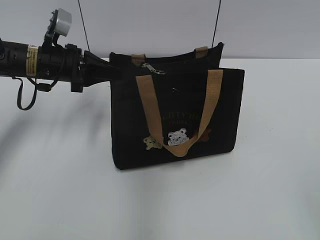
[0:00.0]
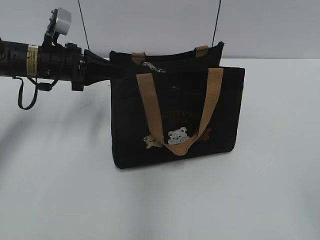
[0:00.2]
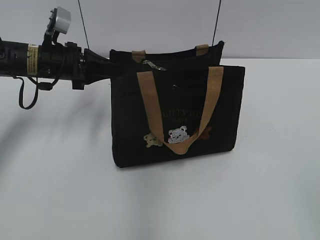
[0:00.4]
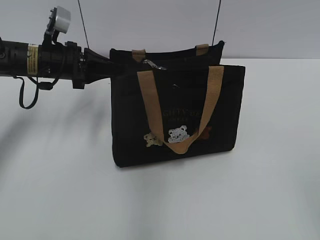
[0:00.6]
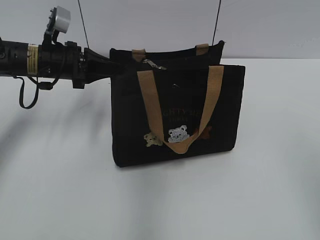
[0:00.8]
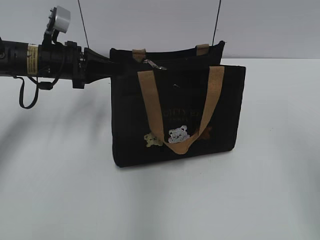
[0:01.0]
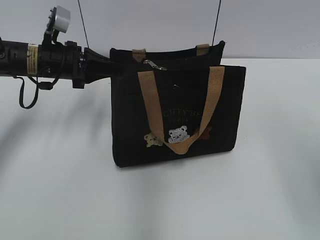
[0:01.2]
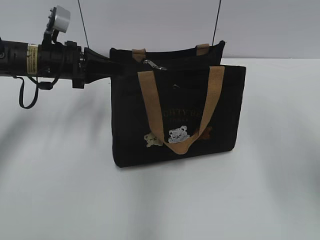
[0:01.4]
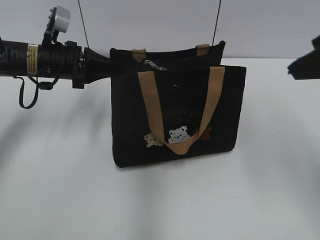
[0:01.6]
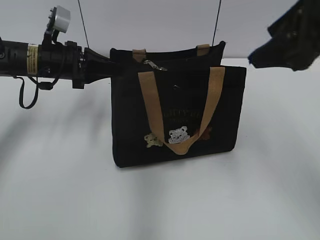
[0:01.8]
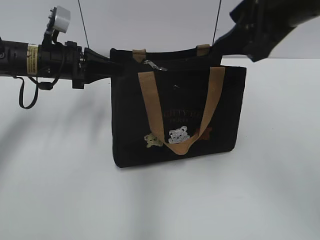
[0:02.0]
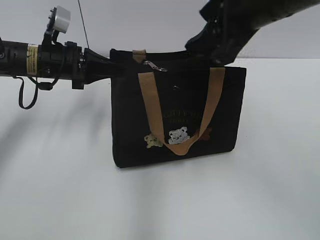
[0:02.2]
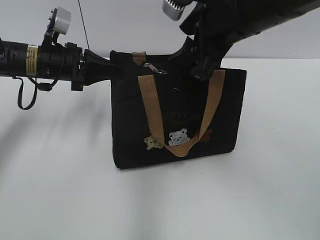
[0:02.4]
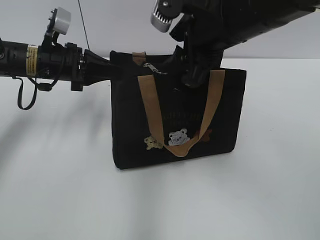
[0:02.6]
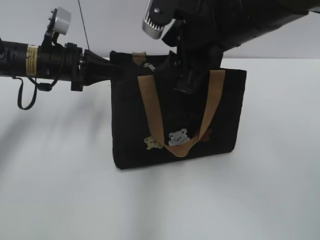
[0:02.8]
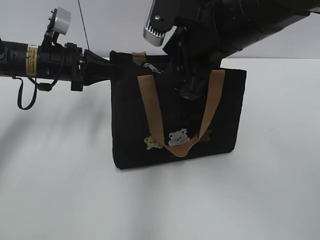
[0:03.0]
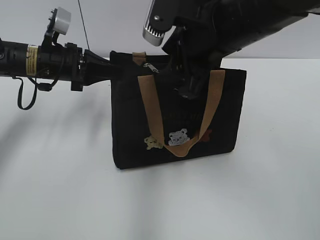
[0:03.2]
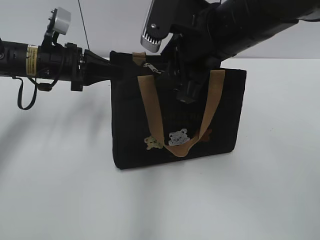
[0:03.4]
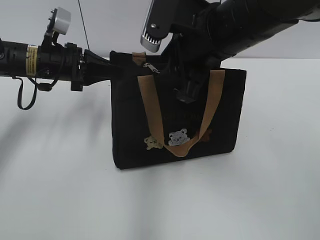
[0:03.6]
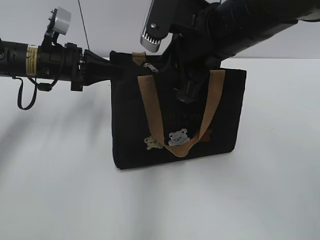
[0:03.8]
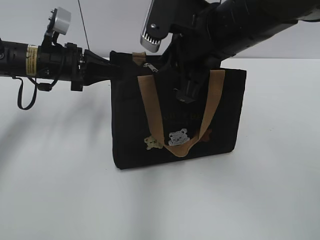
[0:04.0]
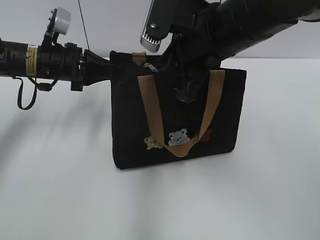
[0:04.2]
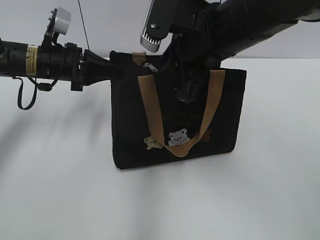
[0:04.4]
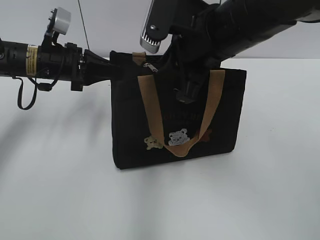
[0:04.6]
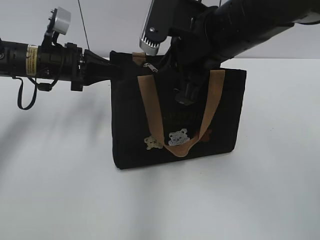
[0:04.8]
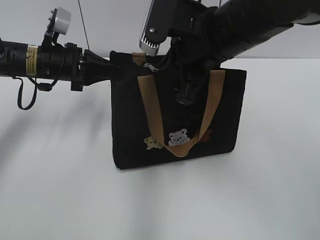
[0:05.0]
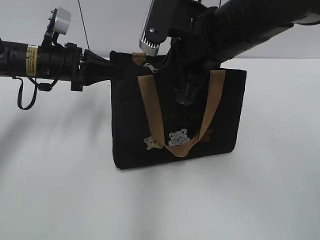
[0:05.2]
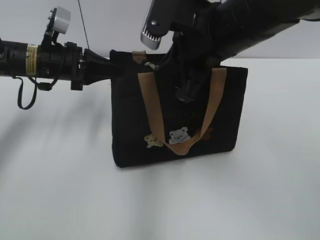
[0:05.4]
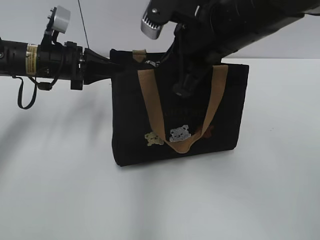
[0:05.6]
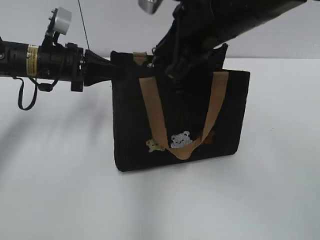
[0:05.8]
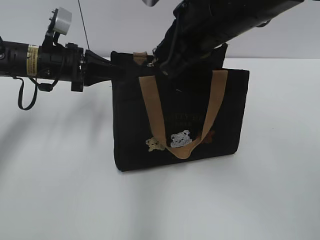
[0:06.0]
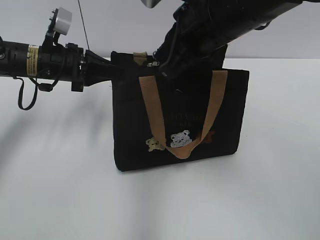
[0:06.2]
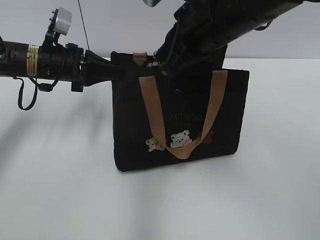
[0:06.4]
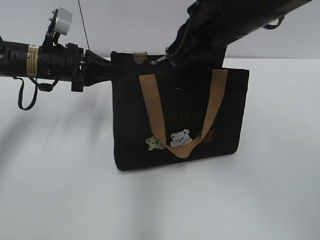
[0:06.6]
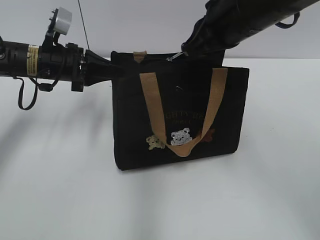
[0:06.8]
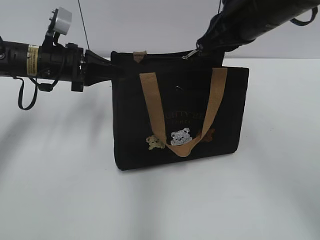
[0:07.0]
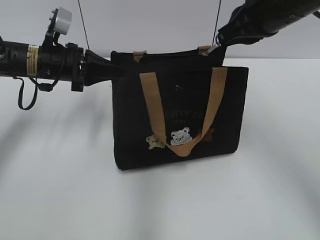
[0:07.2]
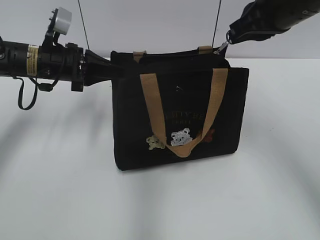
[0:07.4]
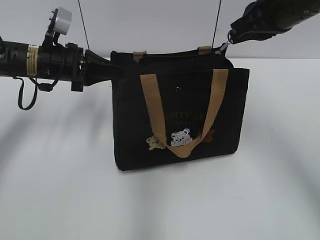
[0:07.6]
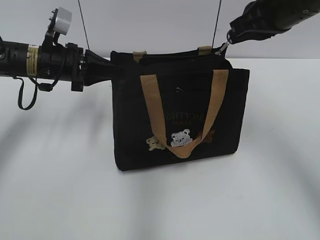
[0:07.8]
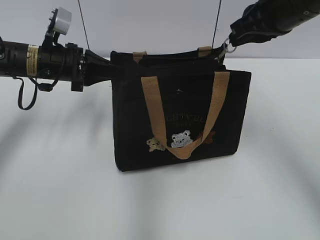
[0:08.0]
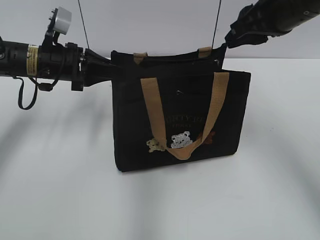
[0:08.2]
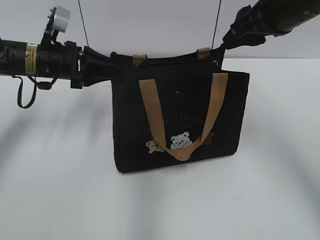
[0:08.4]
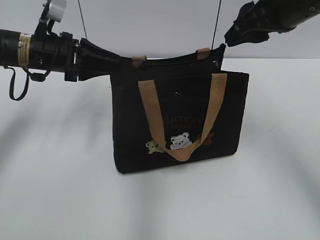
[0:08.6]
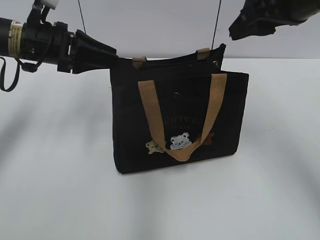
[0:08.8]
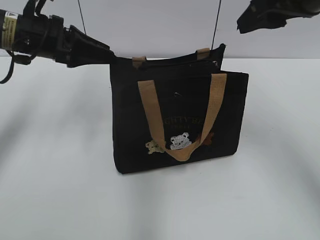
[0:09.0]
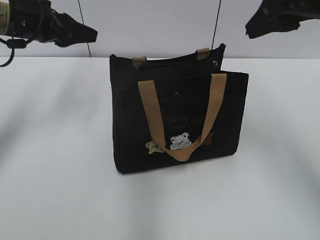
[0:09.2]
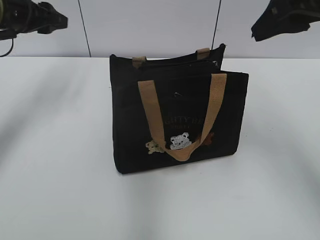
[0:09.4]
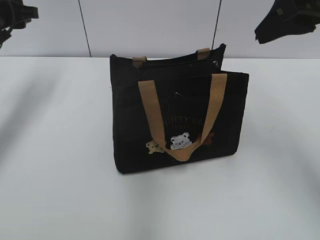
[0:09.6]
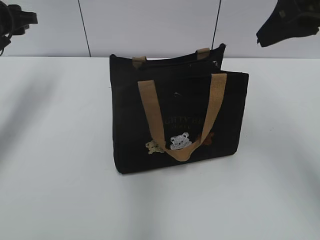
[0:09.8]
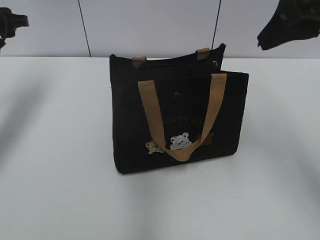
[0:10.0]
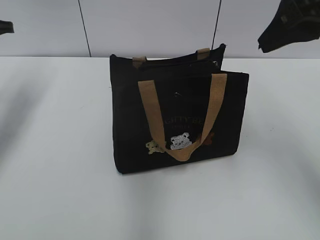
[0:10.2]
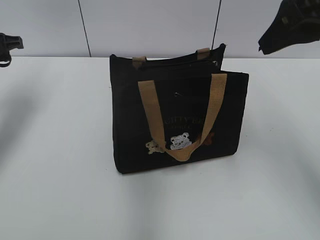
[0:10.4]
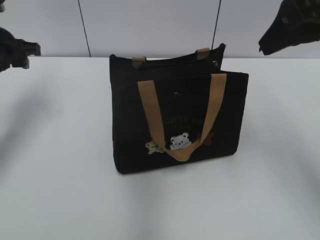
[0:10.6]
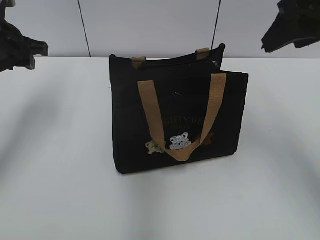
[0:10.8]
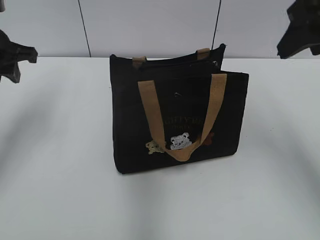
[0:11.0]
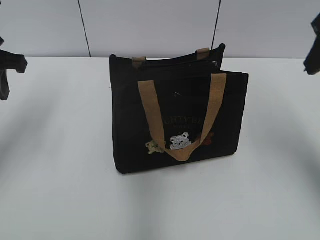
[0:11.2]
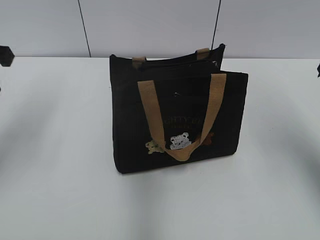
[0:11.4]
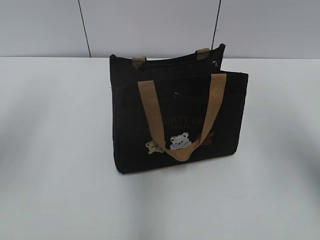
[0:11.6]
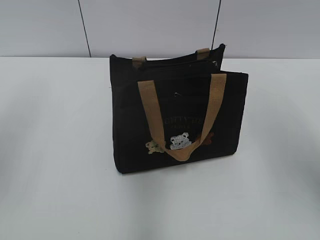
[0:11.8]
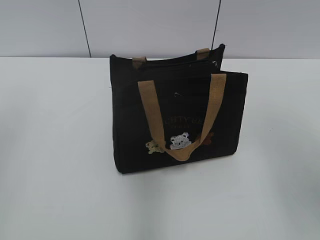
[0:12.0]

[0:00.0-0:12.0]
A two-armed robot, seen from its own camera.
Step, 0:00.0 to 0:08.0: Zip up the bag with your right hand.
Step, 0:08.2 to 0:09.0: Grab the zipper with your left hand.
0:00.0 to 0:01.6: The right gripper shifts some 25 cm forward.
0:01.6 to 0:03.0: The right gripper heads to the left and forward, covering about 15 cm.
0:03.0 to 0:04.4: The right gripper closes.
0:04.4 to 0:06.0: The right gripper closes up.
0:06.0 to 0:07.6: The right gripper heads to the right, covering some 10 cm.
0:07.6 to 0:09.0: The left gripper goes approximately 5 cm upward, and opens up. The right gripper opens.
0:09.0 to 0:10.4: The left gripper is displaced to the left by roughly 10 cm.
0:10.4 to 0:12.0: The right gripper heads backward and to the right, covering approximately 10 cm. Meanwhile the left gripper heads backward and upward, covering approximately 25 cm.

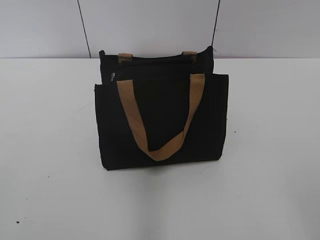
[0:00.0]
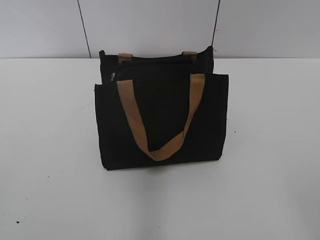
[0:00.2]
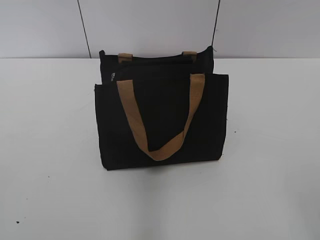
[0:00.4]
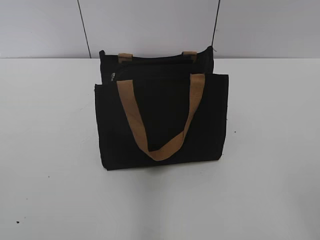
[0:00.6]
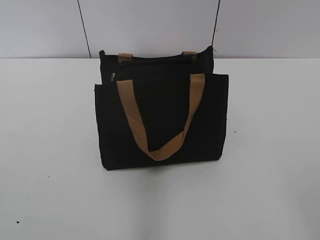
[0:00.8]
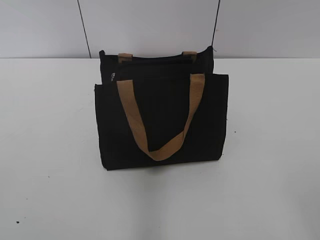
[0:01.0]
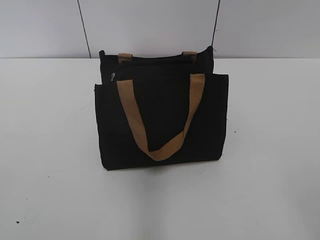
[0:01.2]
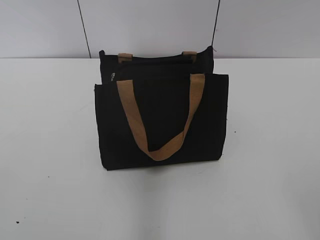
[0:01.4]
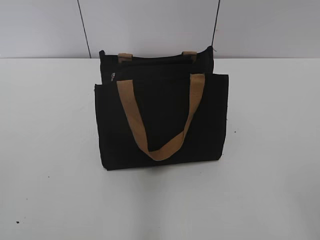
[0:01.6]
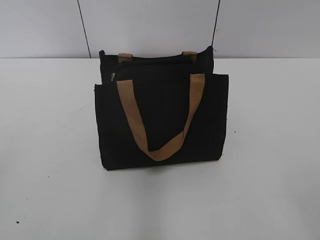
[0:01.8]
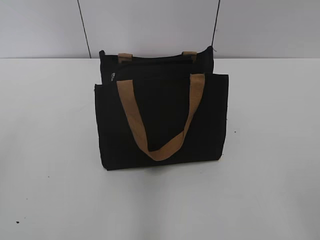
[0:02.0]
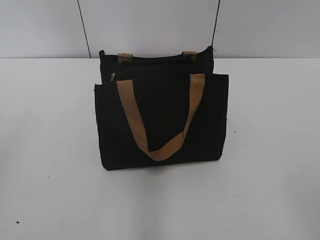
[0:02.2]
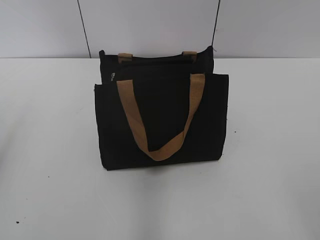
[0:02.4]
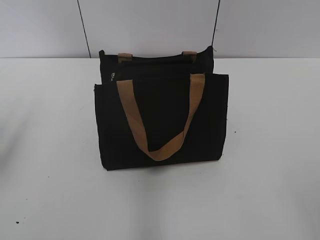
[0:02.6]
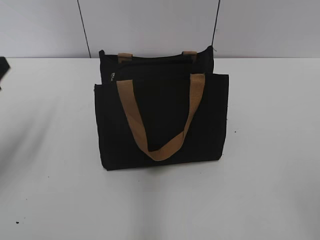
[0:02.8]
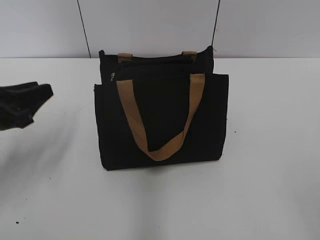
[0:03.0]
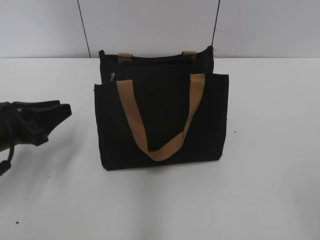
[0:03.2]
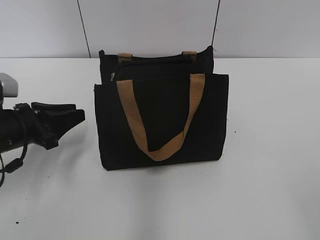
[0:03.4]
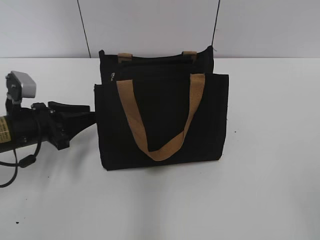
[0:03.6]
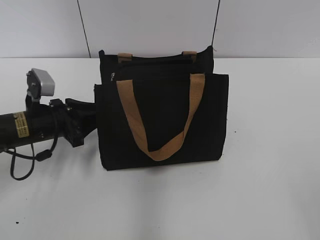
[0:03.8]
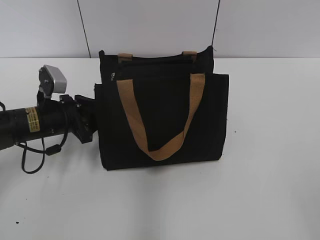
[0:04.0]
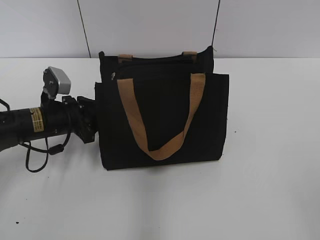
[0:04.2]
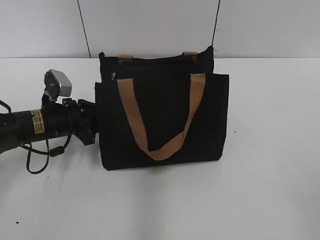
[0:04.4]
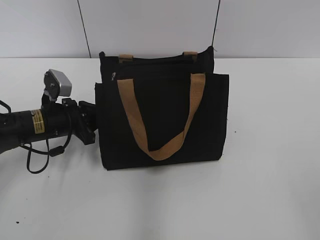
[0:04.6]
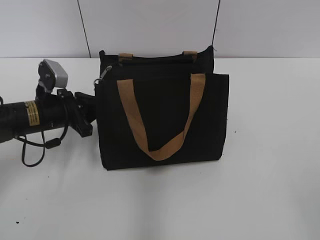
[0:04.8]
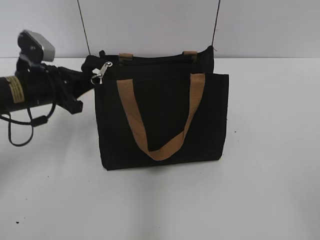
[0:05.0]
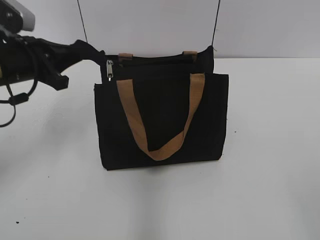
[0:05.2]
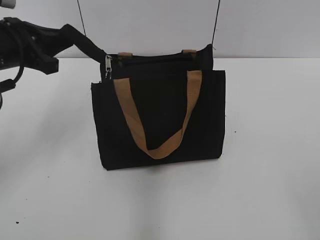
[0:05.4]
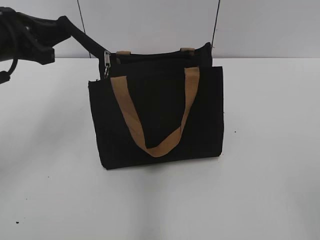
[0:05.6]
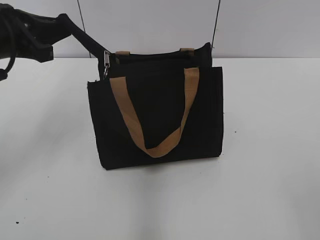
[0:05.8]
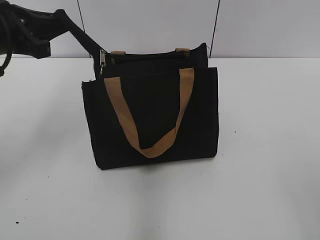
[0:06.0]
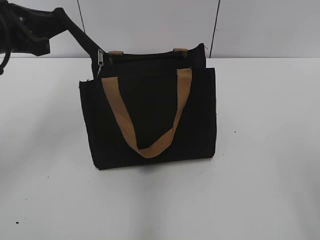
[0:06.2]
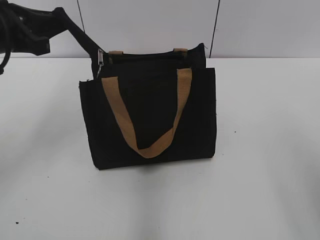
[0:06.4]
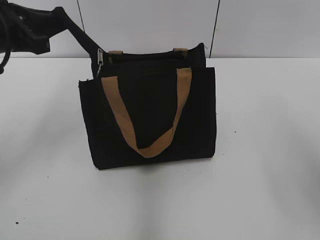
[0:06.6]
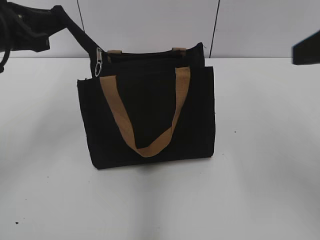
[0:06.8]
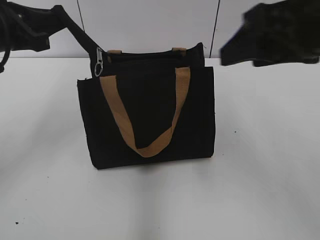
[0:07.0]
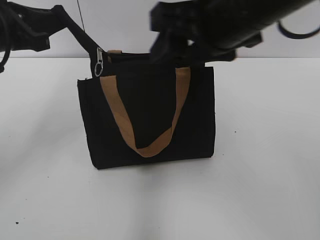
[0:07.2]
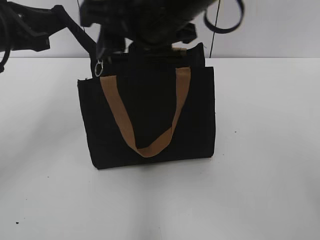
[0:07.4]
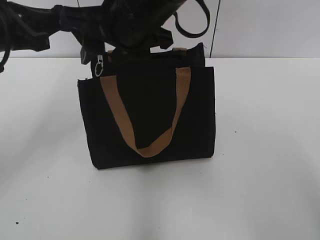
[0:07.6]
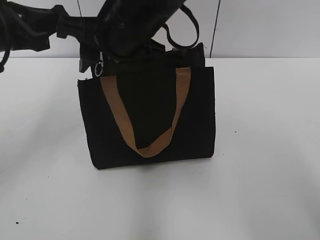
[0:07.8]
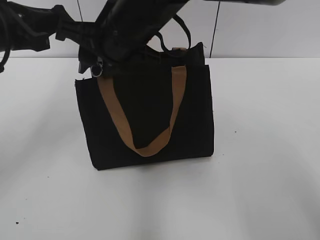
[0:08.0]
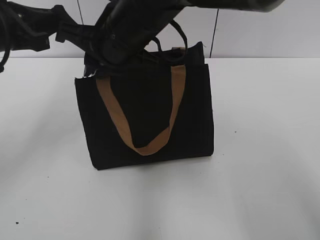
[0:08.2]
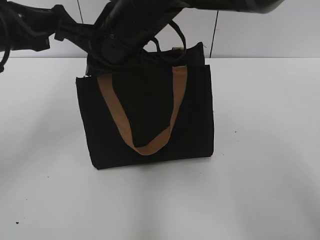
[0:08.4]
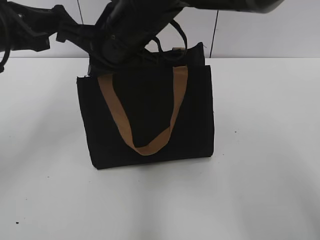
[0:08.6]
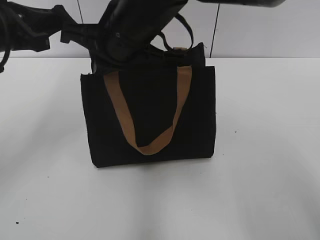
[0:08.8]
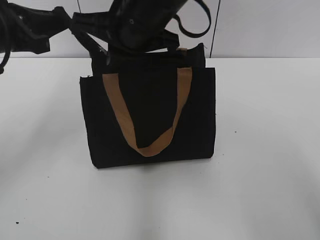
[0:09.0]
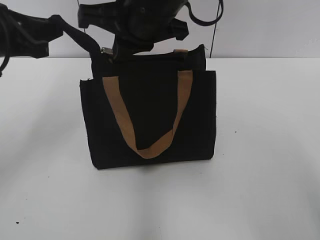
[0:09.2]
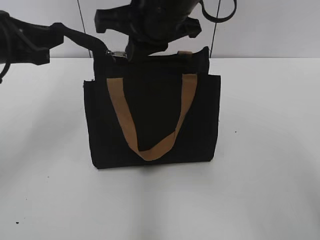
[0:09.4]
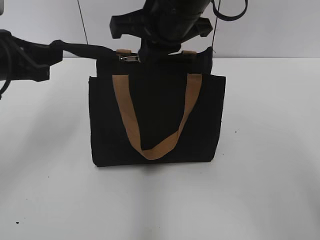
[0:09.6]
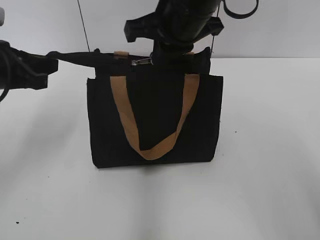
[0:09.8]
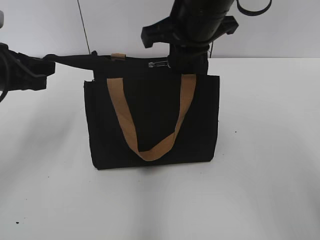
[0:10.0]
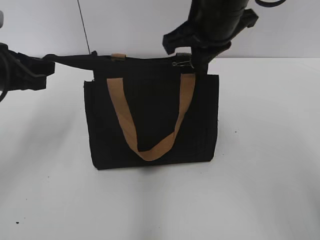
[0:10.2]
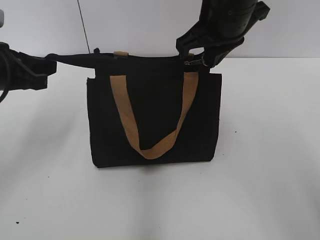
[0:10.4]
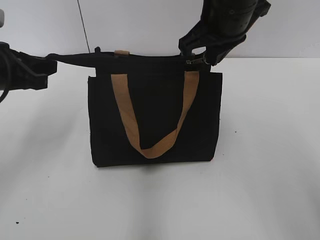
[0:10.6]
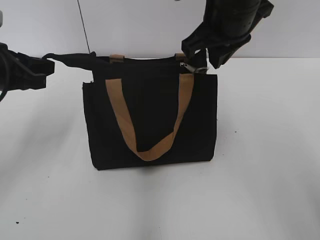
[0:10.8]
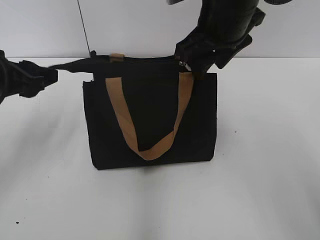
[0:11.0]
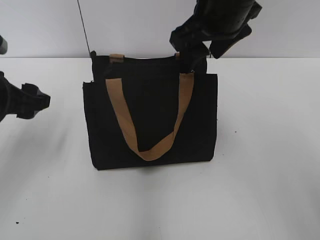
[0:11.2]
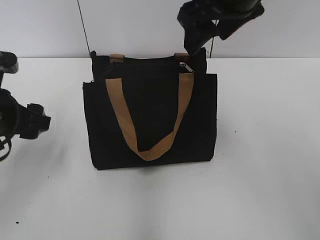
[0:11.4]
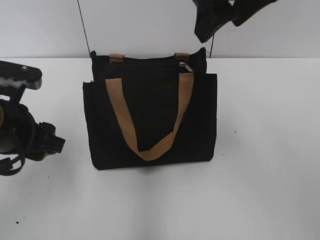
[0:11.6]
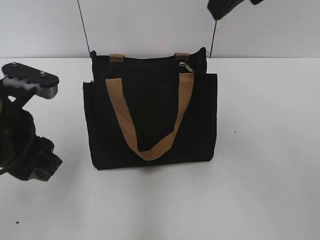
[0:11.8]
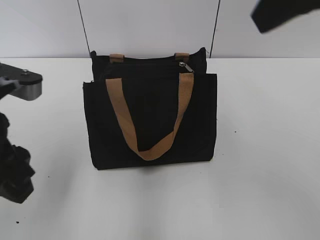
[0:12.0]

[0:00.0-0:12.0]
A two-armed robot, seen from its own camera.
Step, 0:00.0 to 0:10.8: Zip up the bag with your right hand.
0:01.6 to 0:03.0: The left gripper goes approximately 30 cm forward and downward.
0:03.0 to 0:04.4: The left gripper goes roughly 15 cm forward, downward and to the right.
0:04.4 to 0:06.0: The left gripper is displaced upward by approximately 20 cm.
0:06.0 to 0:07.6: The right gripper travels forward and to the left by some 40 cm.
0:07.6 to 0:09.0: The right gripper closes its fingers.
0:09.0 to 0:10.4: The right gripper is displaced to the right by about 10 cm.
0:10.4 to 0:12.0: The right gripper heads backward, upward and to the right, covering some 20 cm, and opens up. The left gripper is displaced backward and to the right by approximately 10 cm, and opens.
